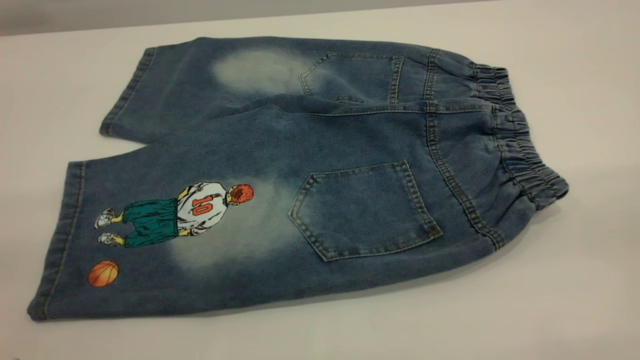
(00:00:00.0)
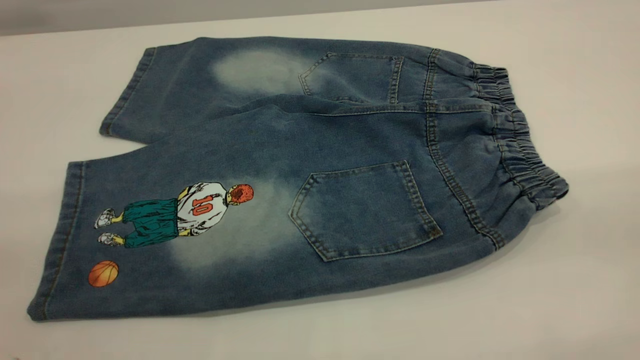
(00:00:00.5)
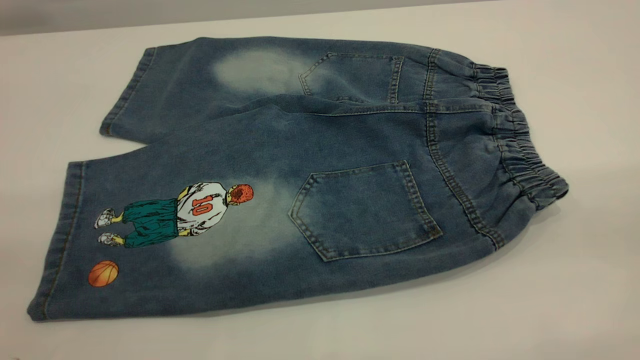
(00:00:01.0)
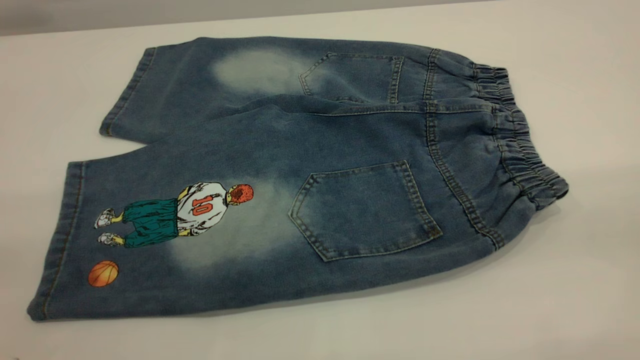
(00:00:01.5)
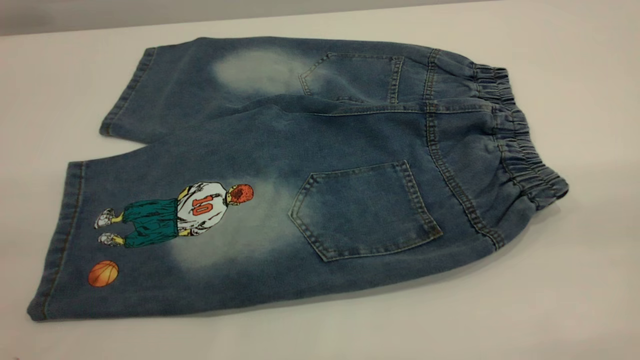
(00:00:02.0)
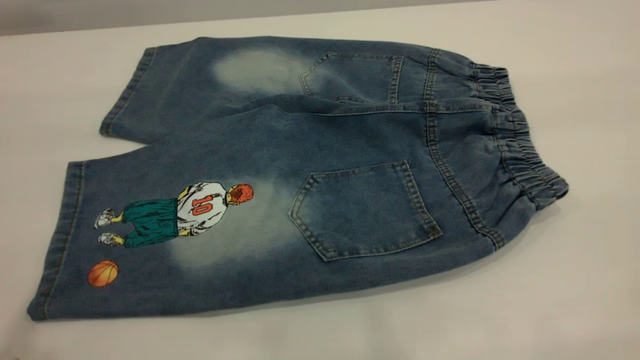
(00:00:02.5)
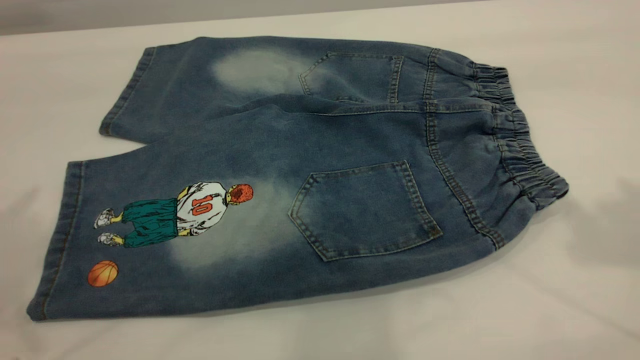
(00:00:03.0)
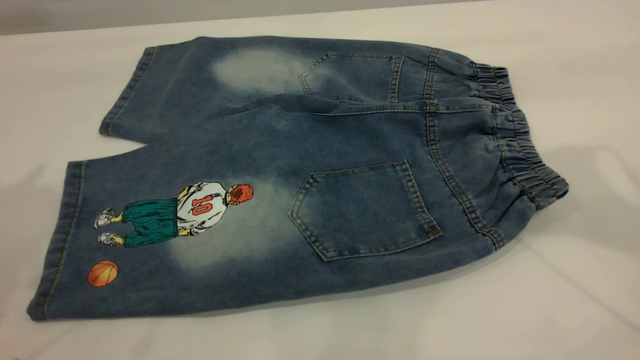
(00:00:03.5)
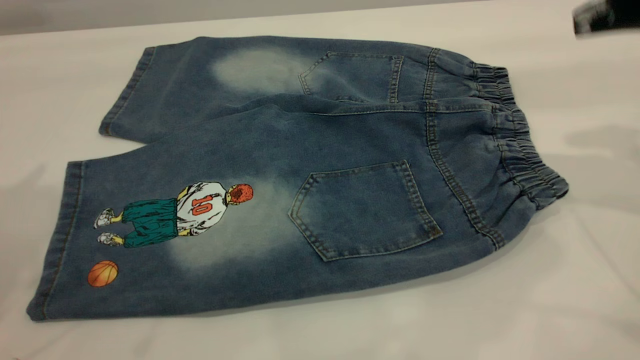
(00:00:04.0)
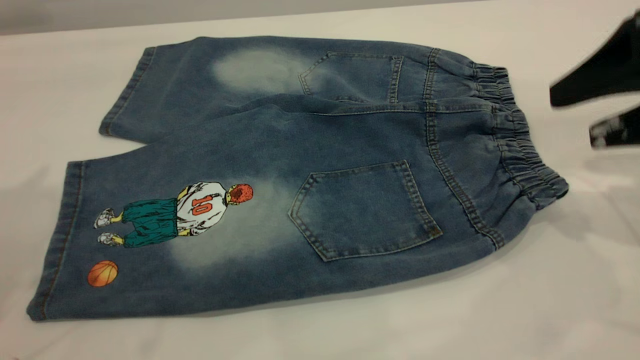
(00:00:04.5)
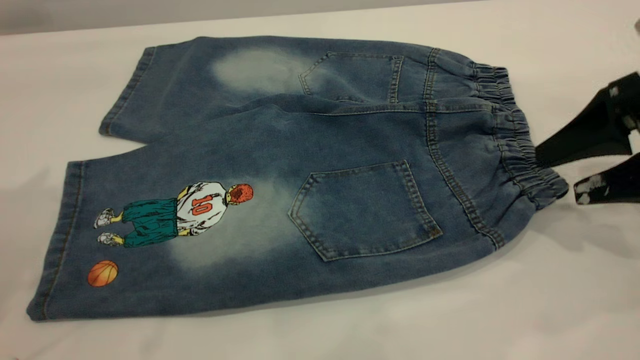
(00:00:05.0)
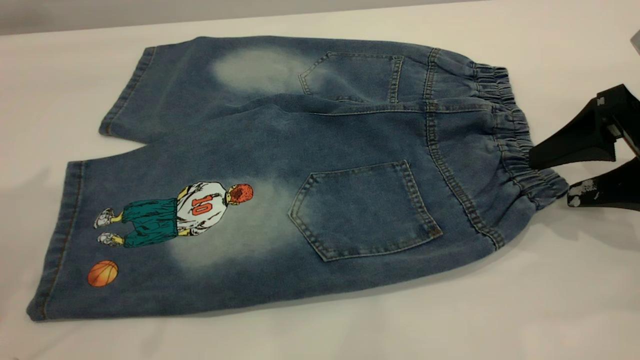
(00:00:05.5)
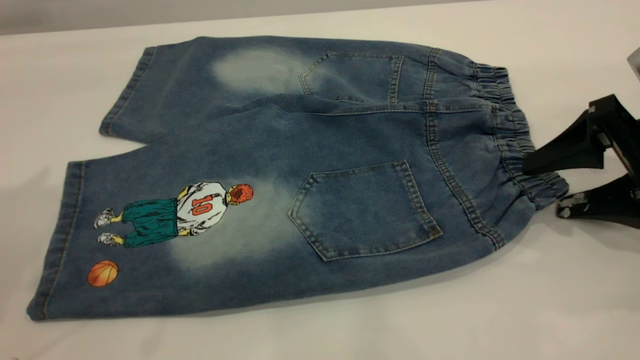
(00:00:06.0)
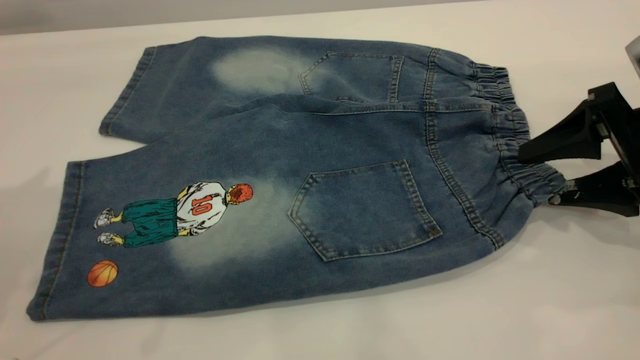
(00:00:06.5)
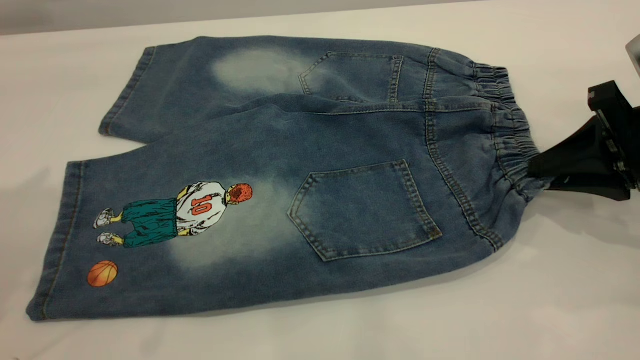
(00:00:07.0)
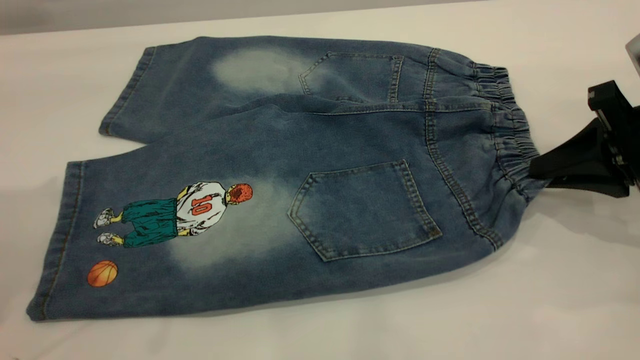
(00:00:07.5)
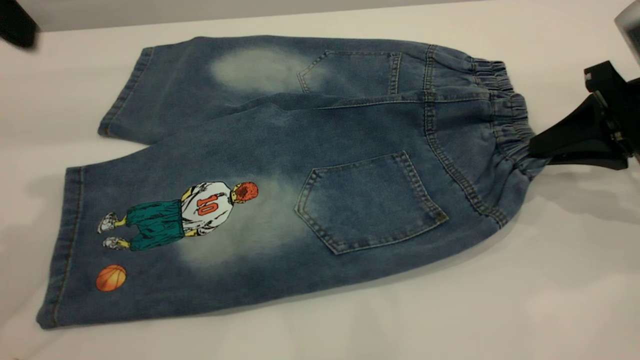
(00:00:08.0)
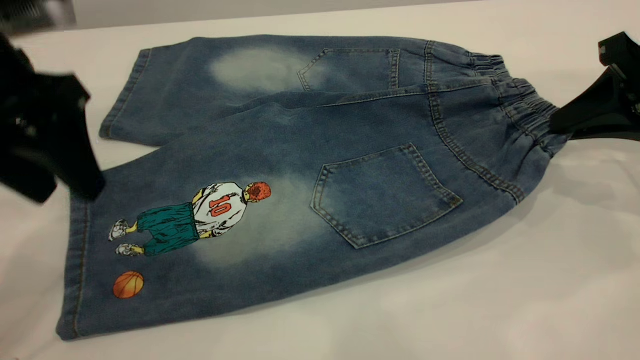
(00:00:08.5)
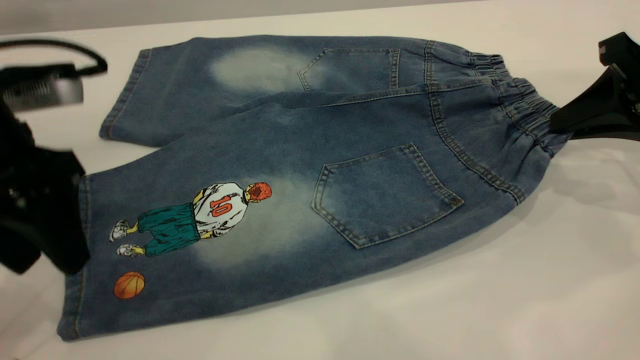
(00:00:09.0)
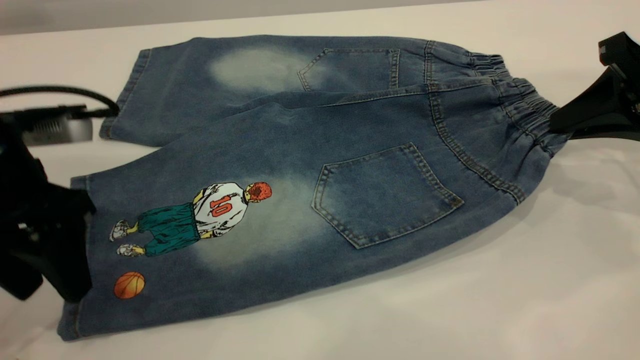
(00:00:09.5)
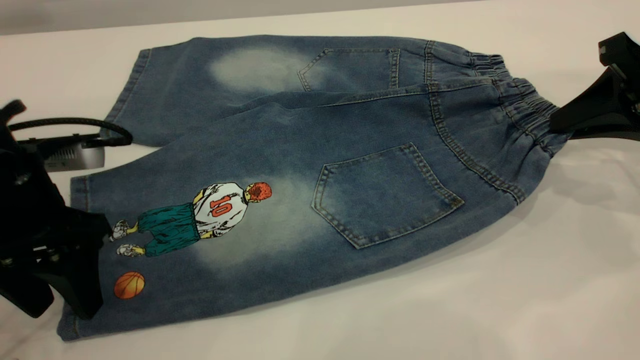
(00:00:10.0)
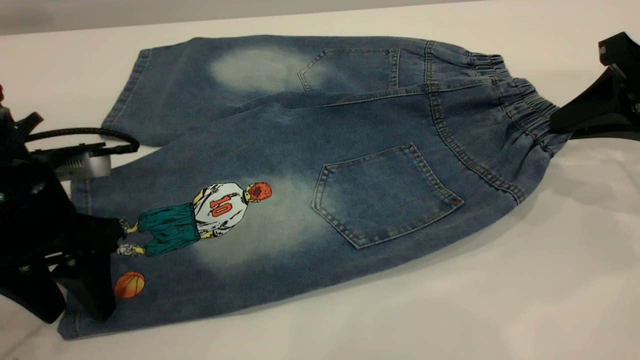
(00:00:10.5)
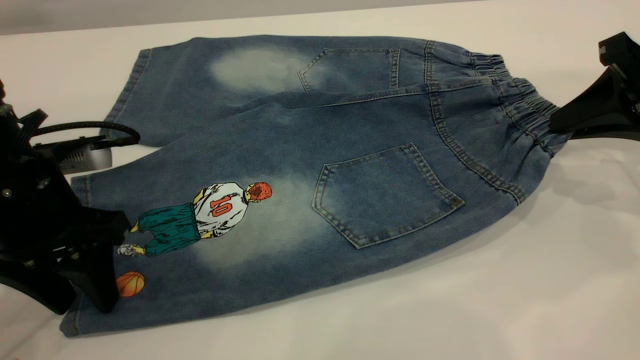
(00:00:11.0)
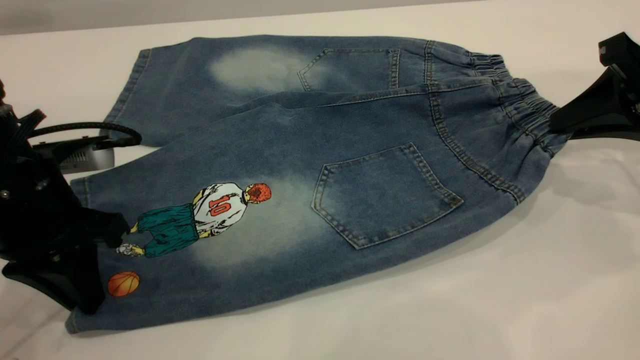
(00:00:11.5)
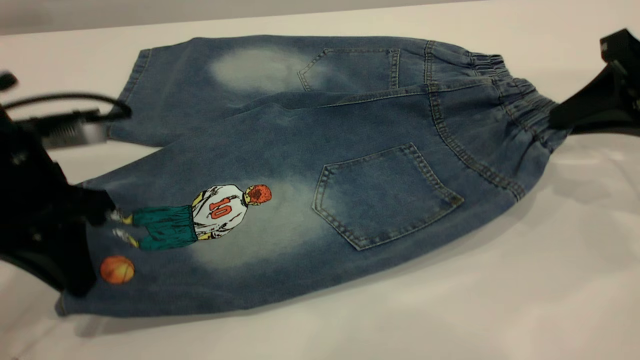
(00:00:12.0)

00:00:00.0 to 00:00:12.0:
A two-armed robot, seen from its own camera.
00:00:02.0 to 00:00:04.0: The right gripper travels forward and downward by some 35 cm.
00:00:04.0 to 00:00:06.0: The right gripper goes some 15 cm downward.
00:00:06.0 to 00:00:08.0: The left gripper heads downward, covering some 10 cm. Meanwhile the right gripper closes its fingers.
00:00:08.0 to 00:00:10.0: The left gripper goes roughly 15 cm downward.
00:00:10.0 to 00:00:12.0: The left gripper closes its fingers.

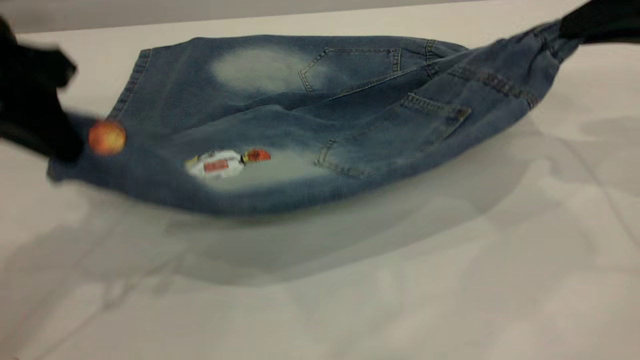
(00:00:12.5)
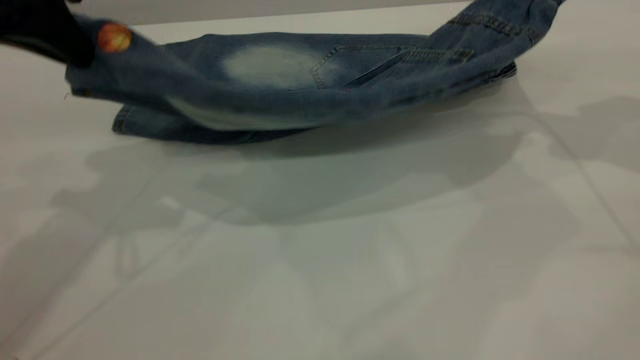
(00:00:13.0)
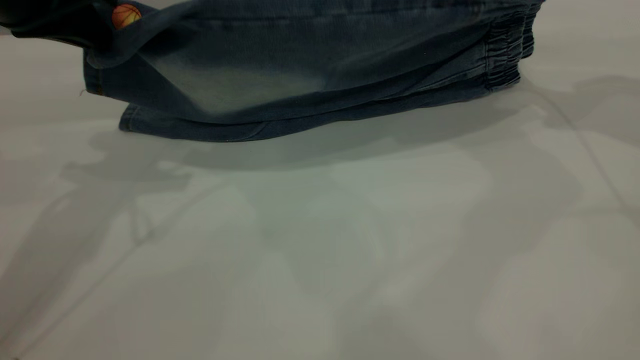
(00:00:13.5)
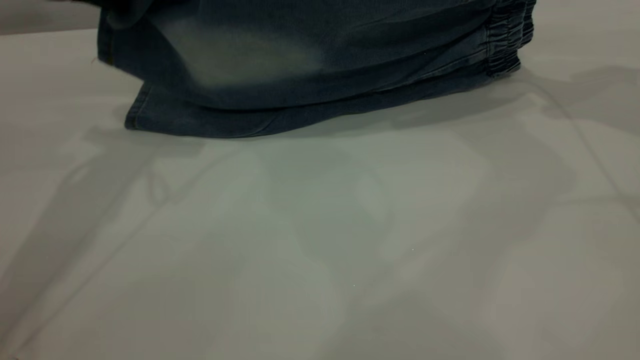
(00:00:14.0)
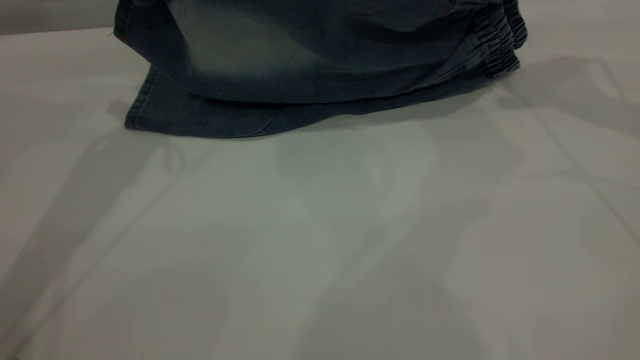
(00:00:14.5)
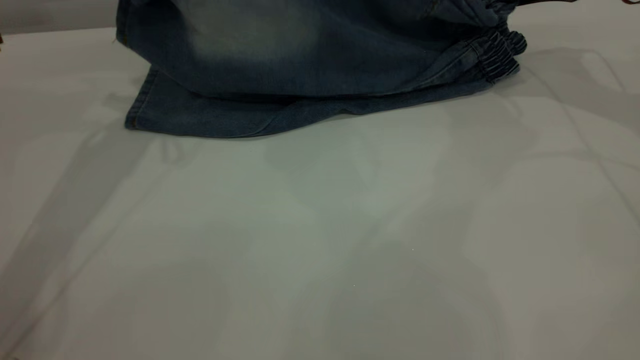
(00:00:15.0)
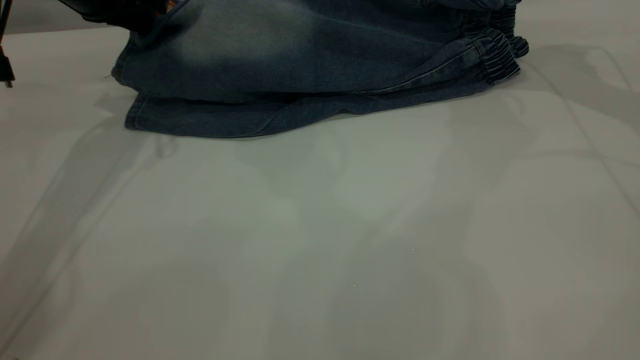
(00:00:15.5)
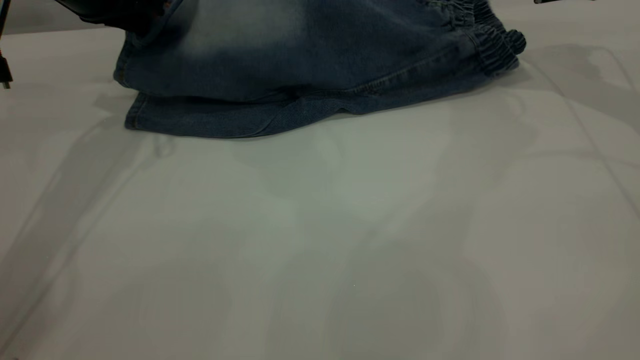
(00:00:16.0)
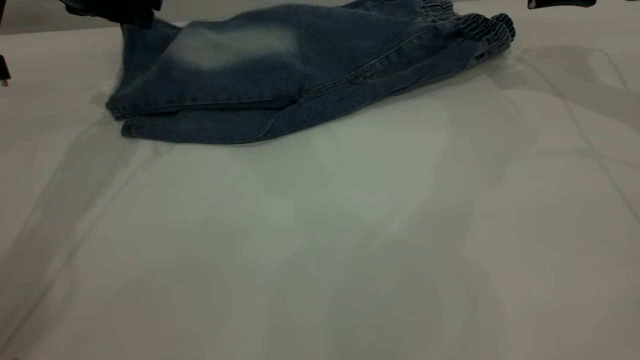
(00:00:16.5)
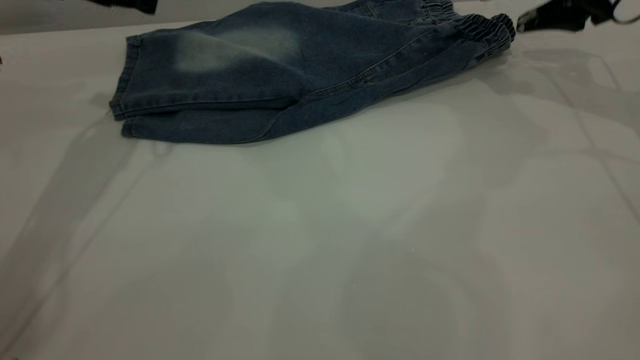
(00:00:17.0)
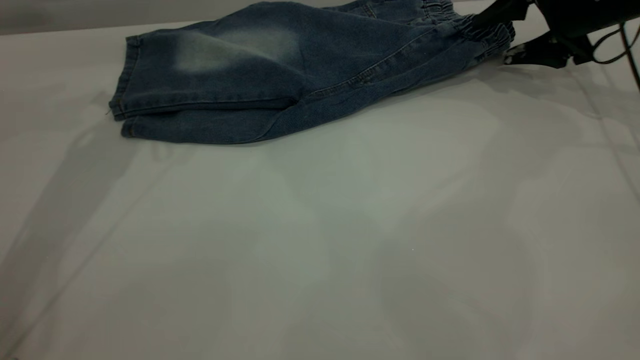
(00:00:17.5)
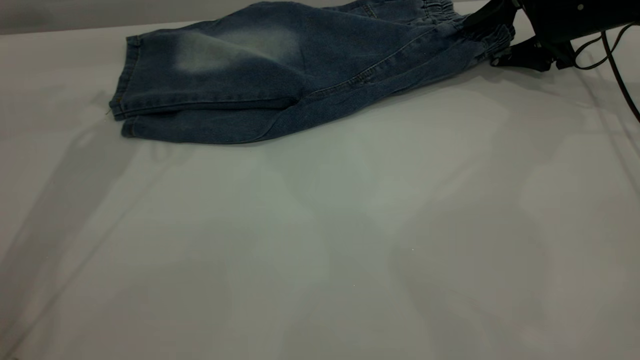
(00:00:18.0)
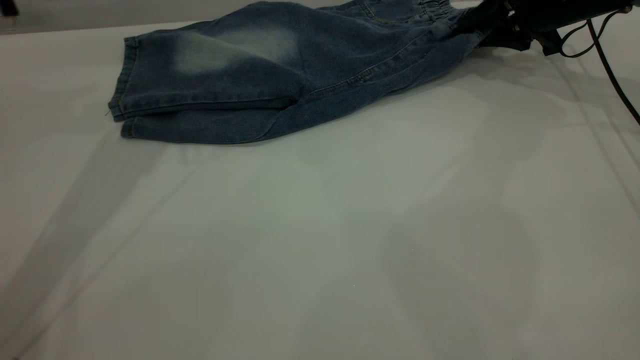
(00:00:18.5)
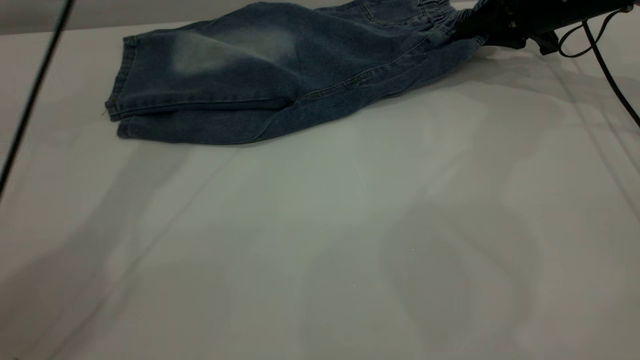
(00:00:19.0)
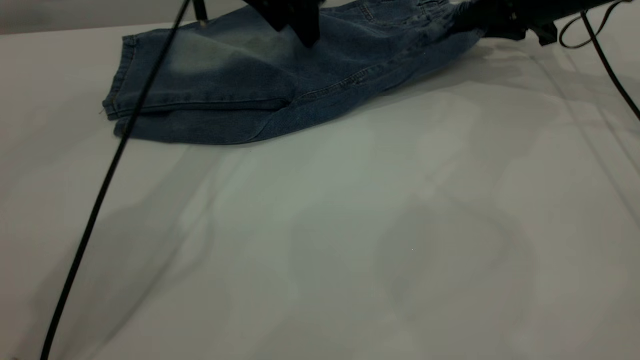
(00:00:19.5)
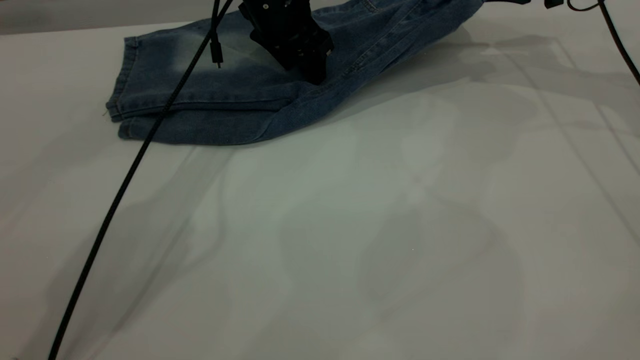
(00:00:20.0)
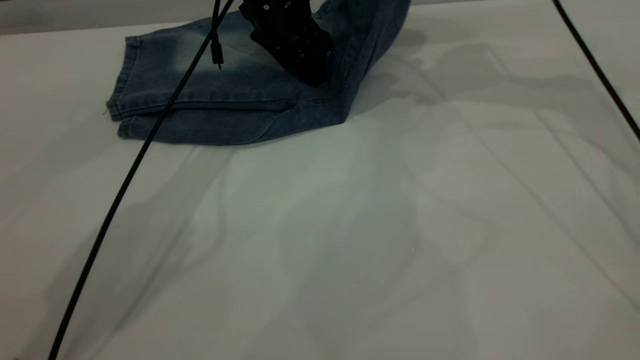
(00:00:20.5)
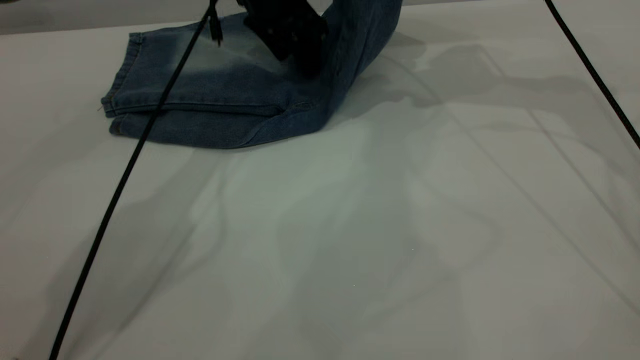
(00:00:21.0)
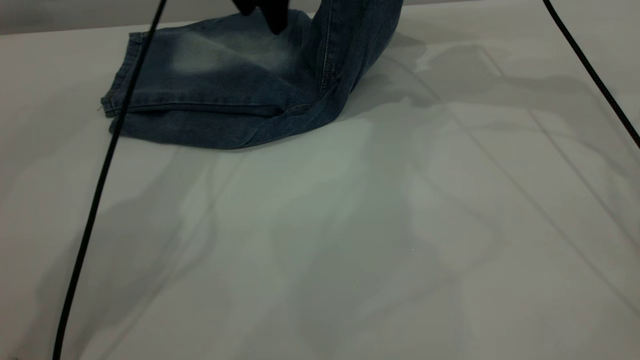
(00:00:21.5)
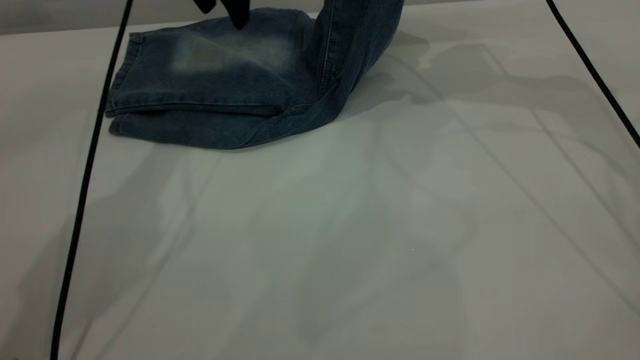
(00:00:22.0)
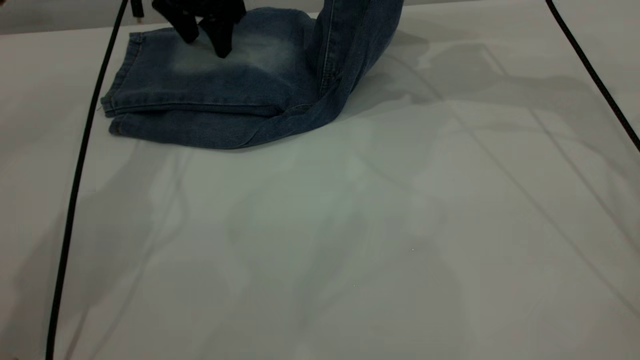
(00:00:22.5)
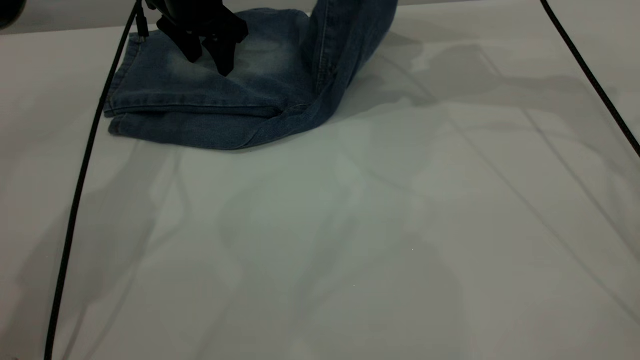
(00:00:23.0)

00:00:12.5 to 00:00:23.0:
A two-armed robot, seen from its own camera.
Step, 00:00:12.5 to 00:00:16.5: Fold the bottom of the pants upward.
00:00:12.5 to 00:00:14.5: Both grippers move forward, approximately 15 cm.
00:00:14.5 to 00:00:16.5: The right gripper opens; the left gripper travels downward by some 5 cm, and opens up.
00:00:16.5 to 00:00:19.0: The left gripper goes about 15 cm to the right and upward, while the right gripper is displaced downward by roughly 5 cm, and closes its fingers.
00:00:19.0 to 00:00:21.0: The right gripper moves upward and to the left, some 15 cm; the left gripper moves downward and to the right, approximately 10 cm.
00:00:21.0 to 00:00:23.0: The left gripper shifts about 10 cm to the left.
